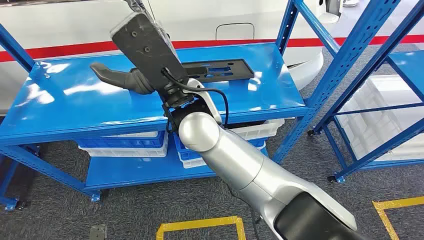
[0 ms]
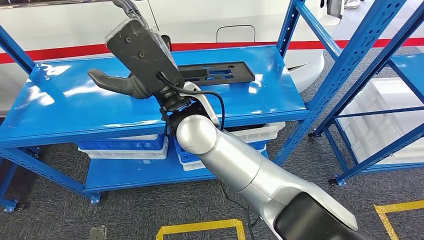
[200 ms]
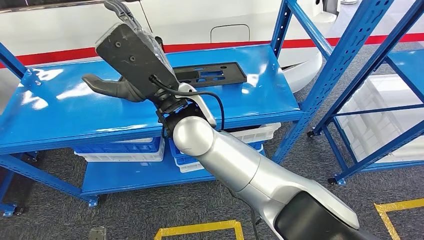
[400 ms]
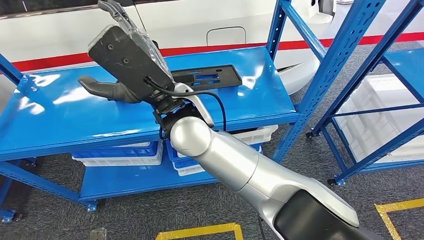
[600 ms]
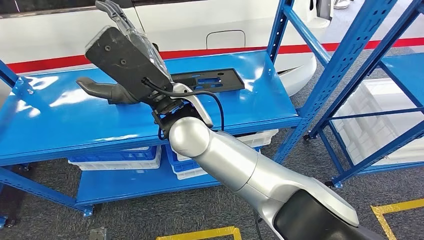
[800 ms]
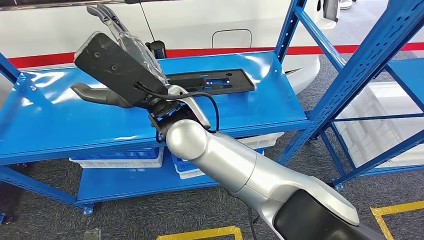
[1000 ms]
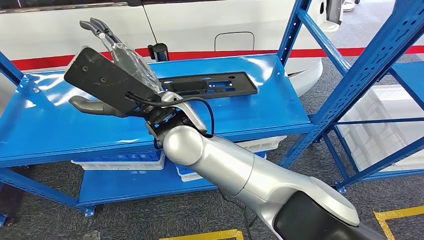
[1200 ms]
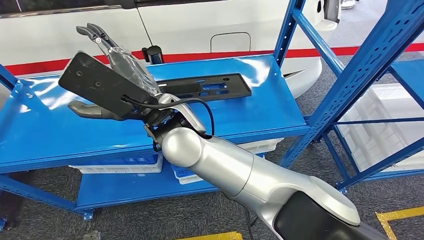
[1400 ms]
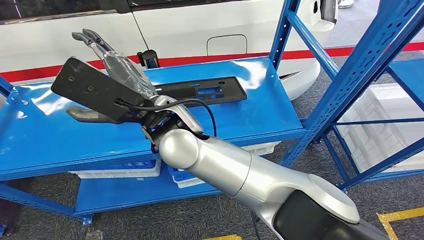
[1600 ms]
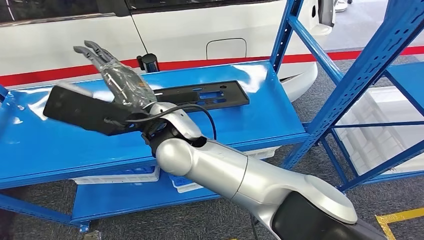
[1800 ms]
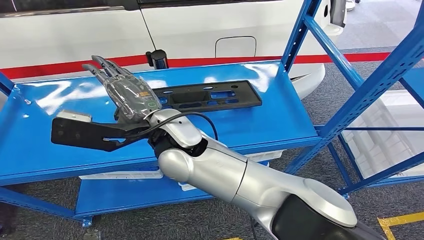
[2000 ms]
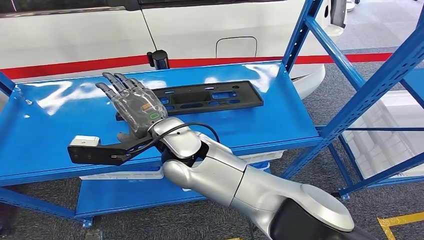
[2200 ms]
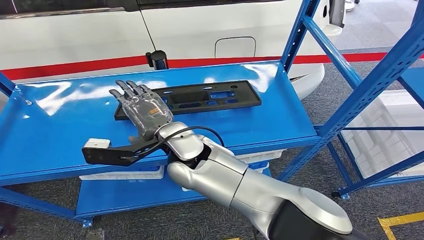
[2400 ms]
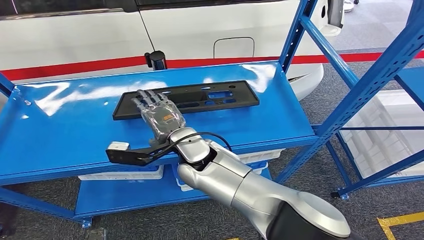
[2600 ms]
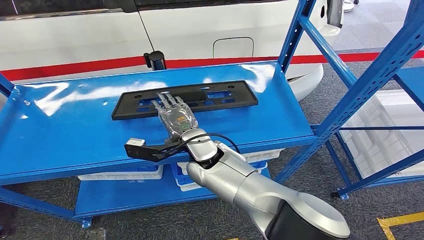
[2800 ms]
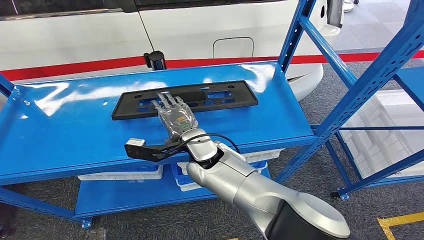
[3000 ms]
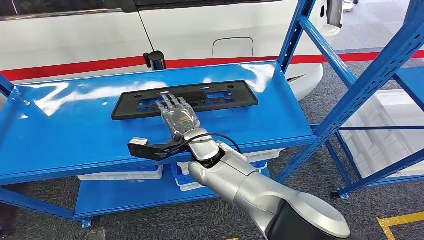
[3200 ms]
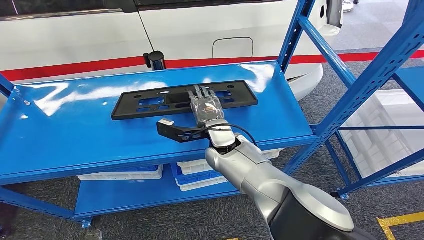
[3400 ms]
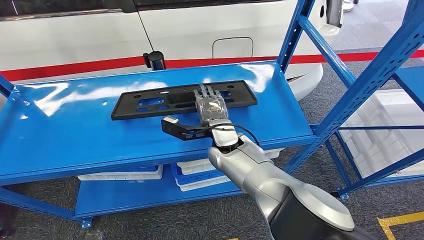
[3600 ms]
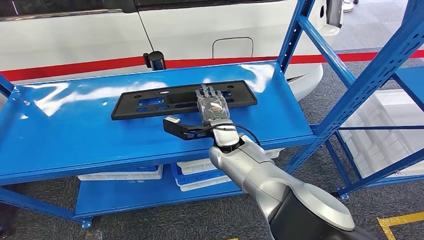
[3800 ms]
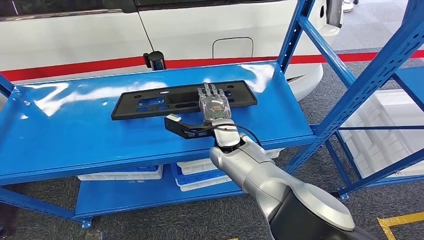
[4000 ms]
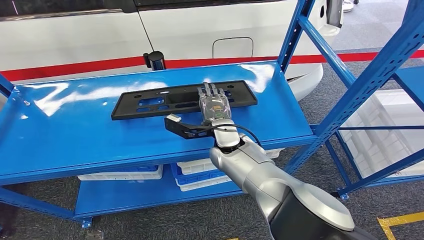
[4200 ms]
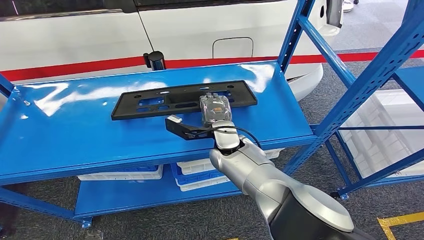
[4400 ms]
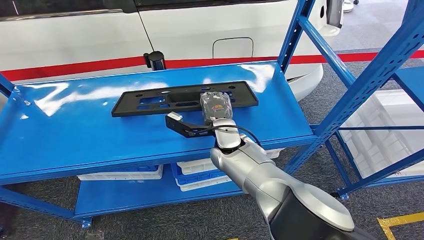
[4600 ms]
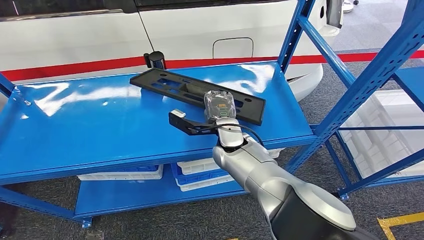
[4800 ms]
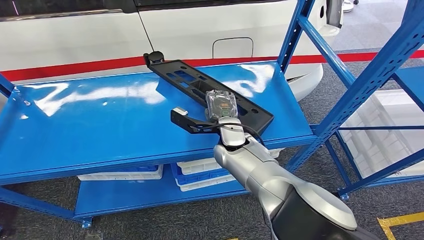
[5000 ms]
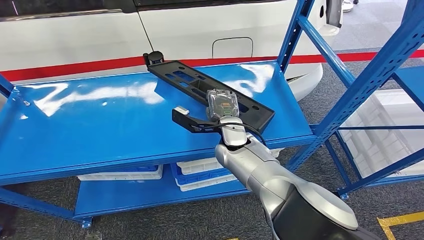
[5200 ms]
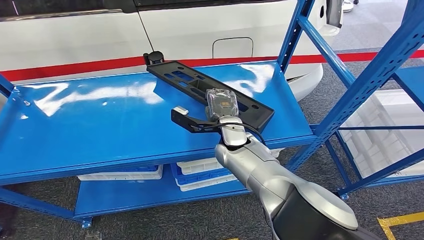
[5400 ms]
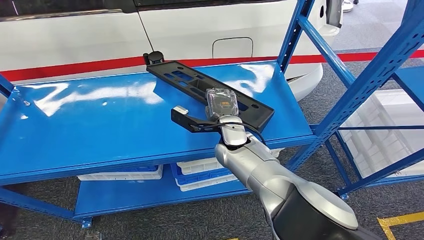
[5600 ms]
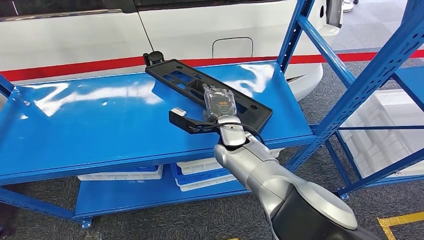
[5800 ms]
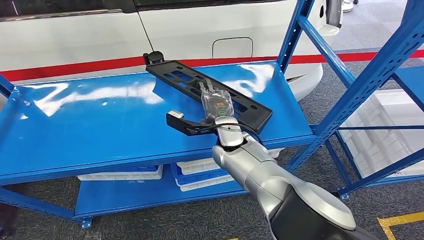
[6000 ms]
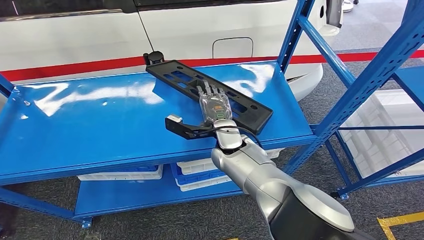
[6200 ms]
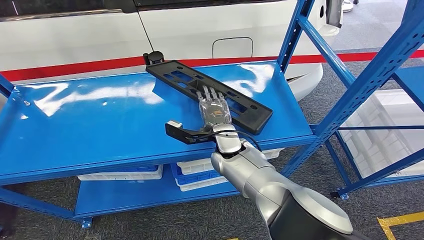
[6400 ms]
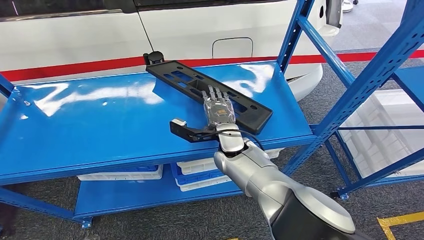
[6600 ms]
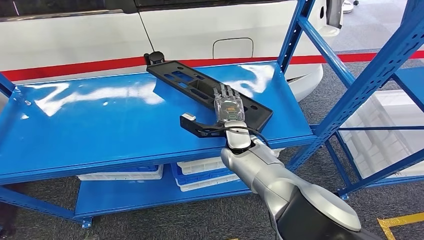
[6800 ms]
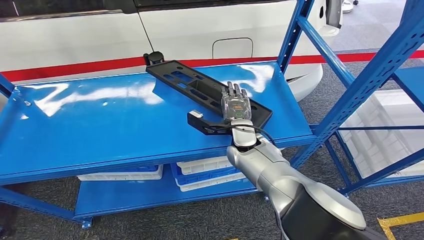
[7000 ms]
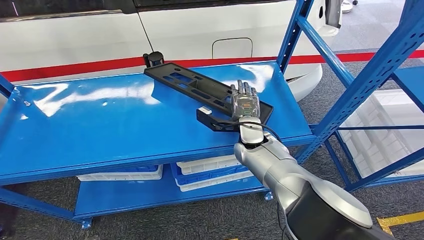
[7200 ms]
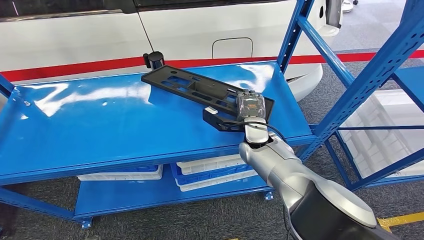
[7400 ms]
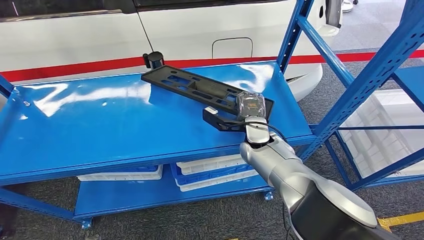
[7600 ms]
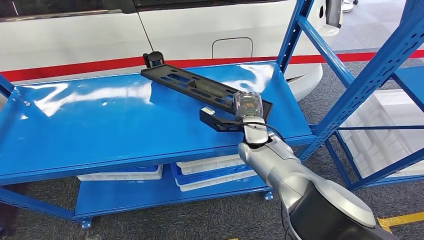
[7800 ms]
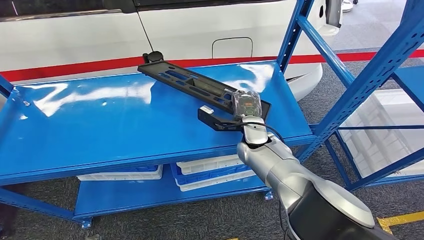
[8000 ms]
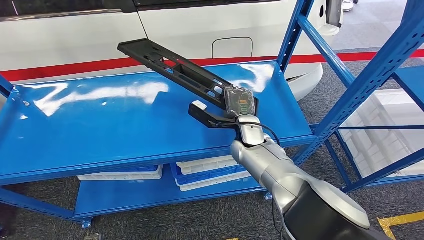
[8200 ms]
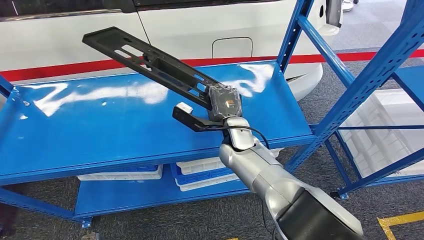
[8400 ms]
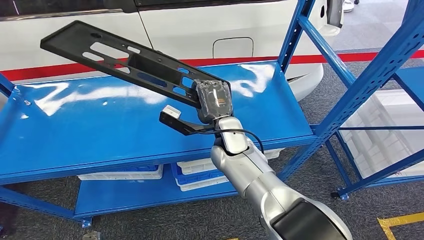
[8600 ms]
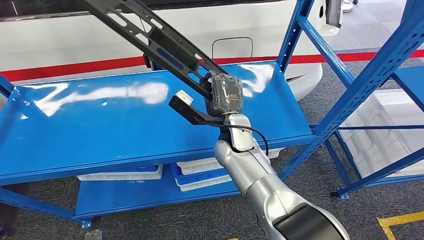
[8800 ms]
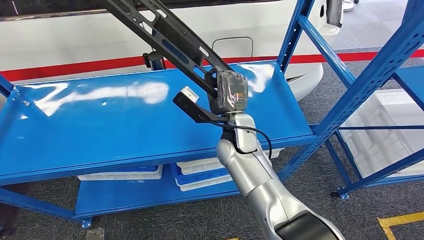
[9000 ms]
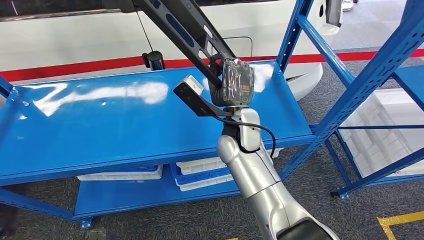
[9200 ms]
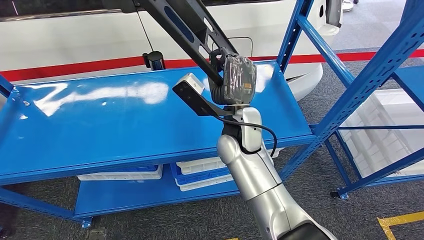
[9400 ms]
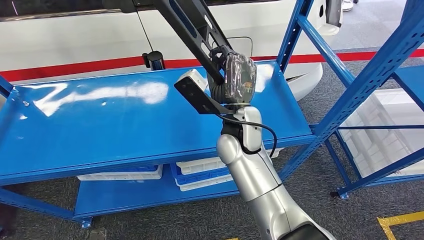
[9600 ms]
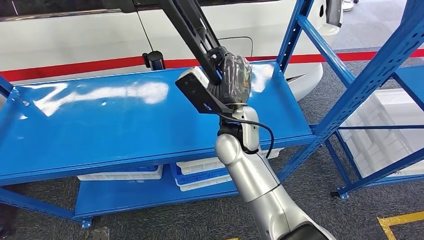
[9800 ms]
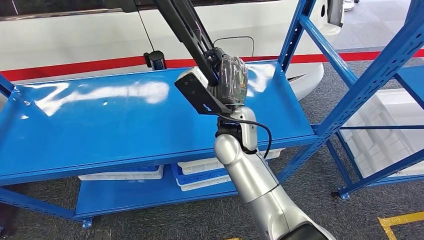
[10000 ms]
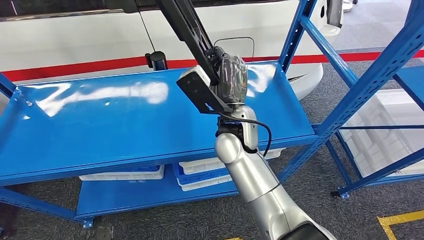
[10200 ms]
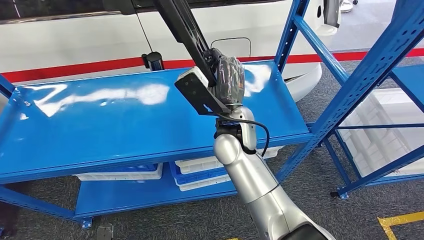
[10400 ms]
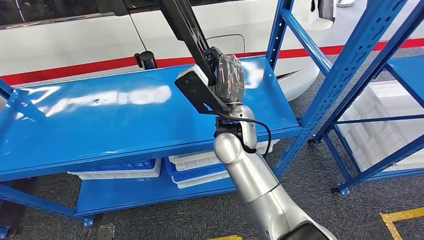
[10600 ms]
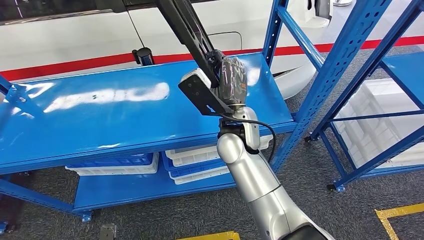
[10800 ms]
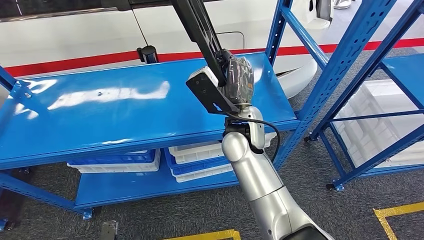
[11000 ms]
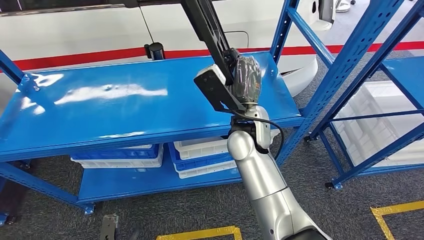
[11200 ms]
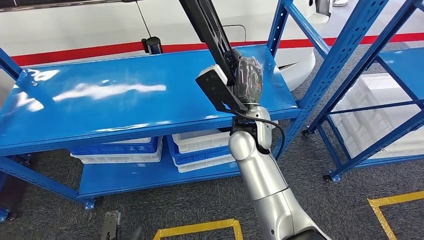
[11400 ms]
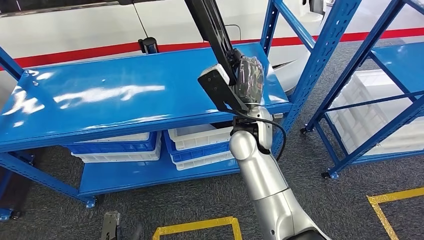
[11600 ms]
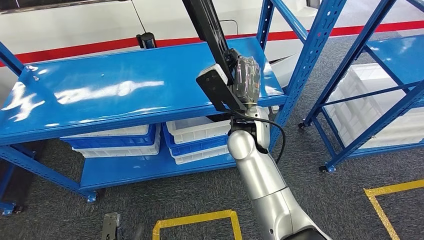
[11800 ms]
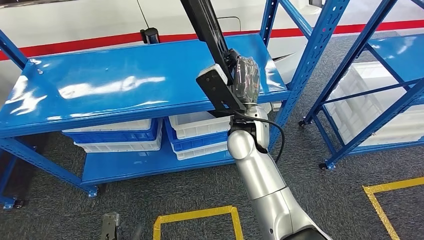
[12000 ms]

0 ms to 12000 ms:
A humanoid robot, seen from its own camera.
Step, 0 ms to 10800 ms: Pick up the large material from the shelf.
3000 ms to 4400 ms: The right hand goes roughly 5 cm to the right.
4400 ms to 6000 ms: The hands move only a little.
6000 ms to 7600 ms: The right hand goes some 10 cm to the right.
7600 ms to 9000 ms: The right hand is displaced to the left and backward by some 15 cm.

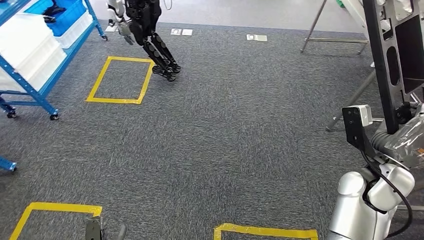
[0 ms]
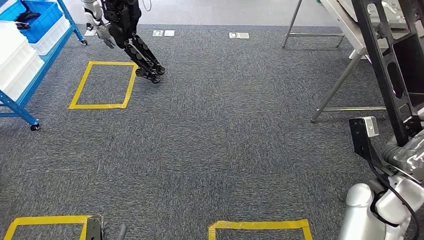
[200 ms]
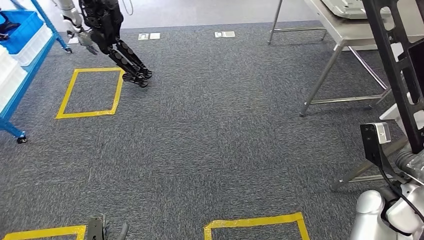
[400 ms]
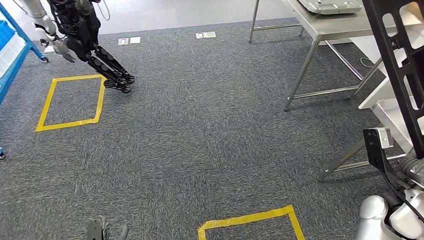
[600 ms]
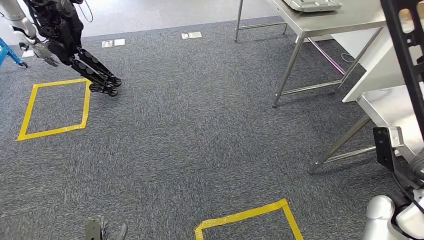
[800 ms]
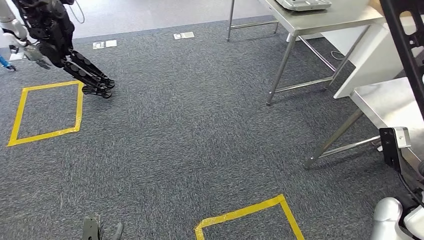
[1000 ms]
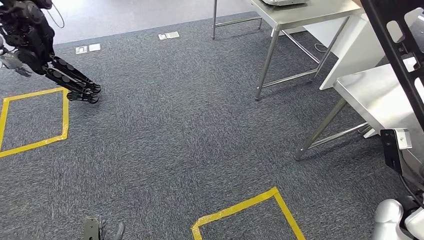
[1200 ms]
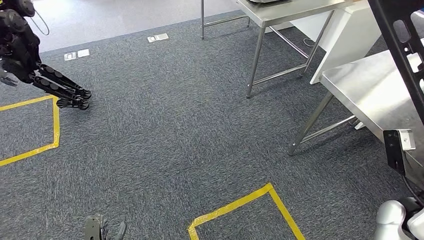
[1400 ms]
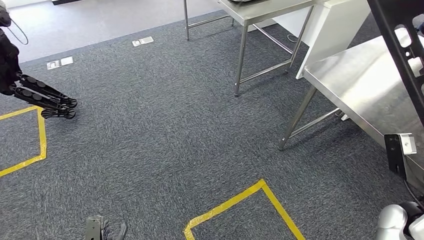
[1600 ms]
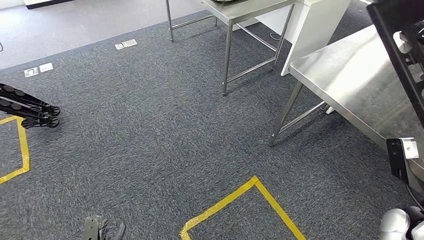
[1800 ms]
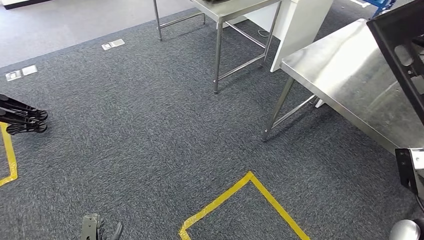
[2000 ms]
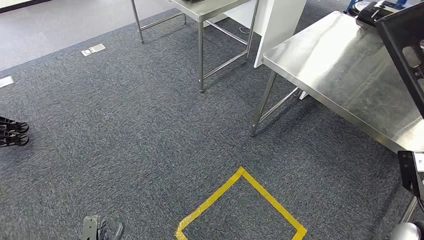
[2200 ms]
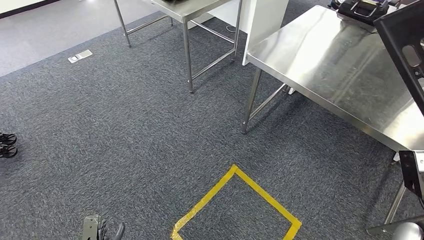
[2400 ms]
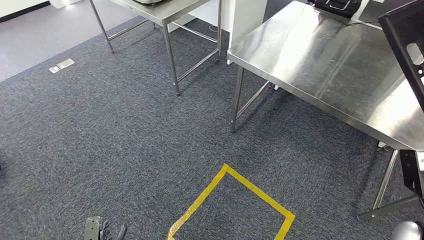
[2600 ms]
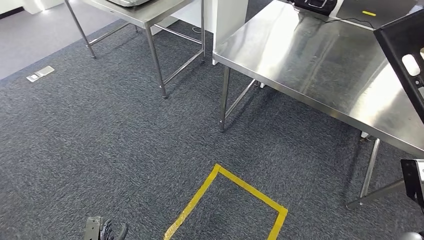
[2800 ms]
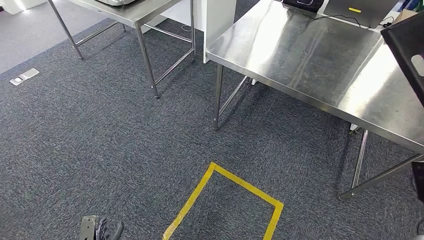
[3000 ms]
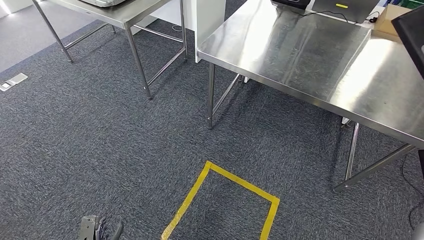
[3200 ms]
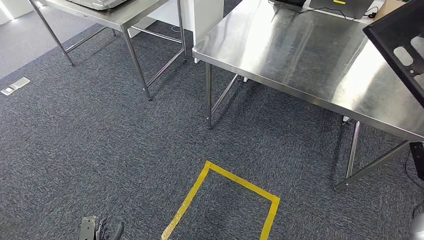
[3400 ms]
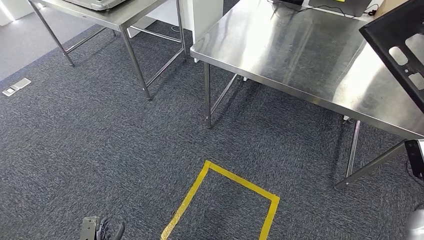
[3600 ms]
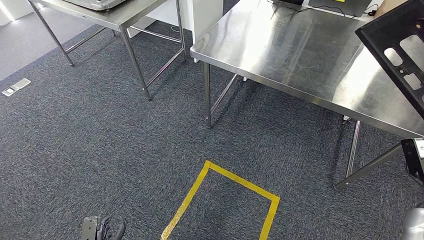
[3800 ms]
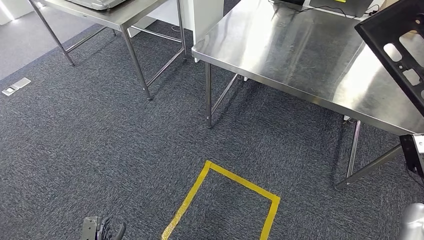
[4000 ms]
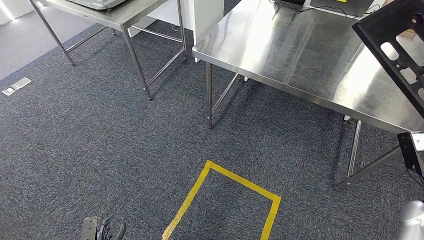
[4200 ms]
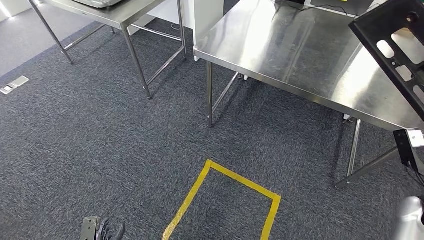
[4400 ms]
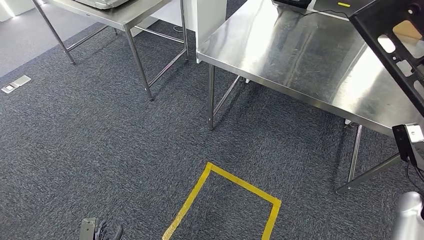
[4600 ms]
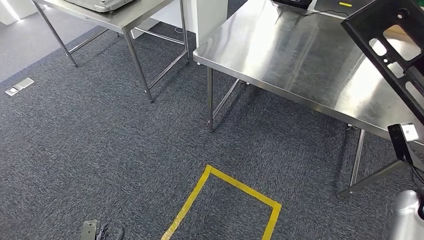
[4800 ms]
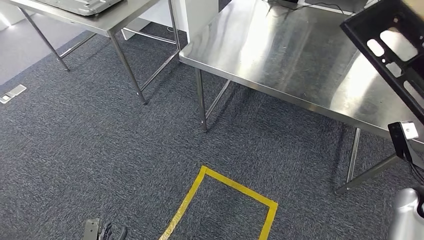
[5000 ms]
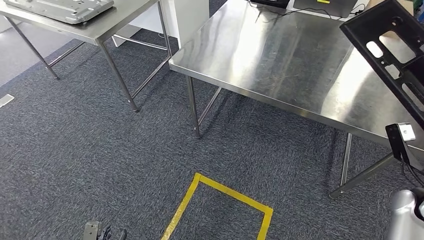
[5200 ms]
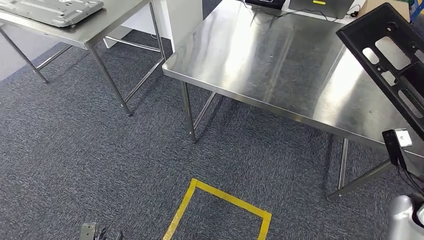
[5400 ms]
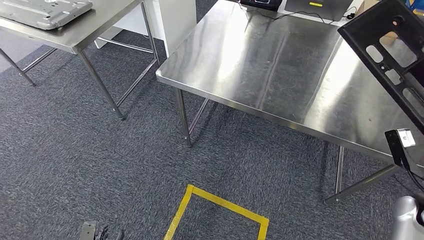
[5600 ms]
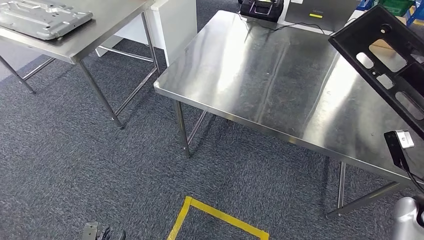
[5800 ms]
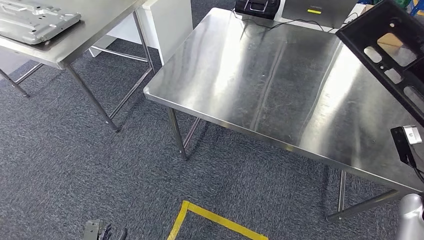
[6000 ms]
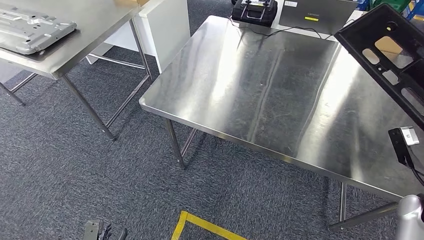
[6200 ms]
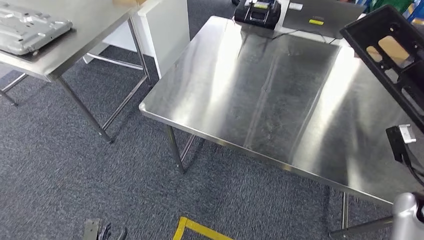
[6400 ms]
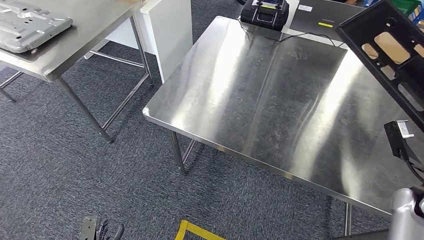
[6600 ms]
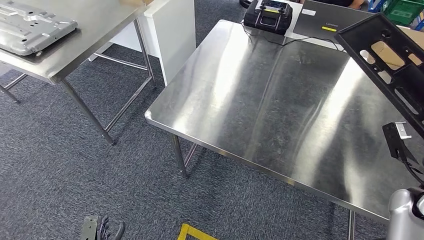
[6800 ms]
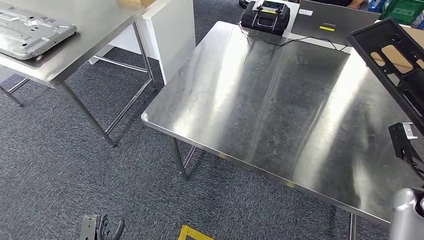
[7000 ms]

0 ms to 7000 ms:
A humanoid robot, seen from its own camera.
Step, 0 ms to 5400 ms: Move the large material to the workbench.
